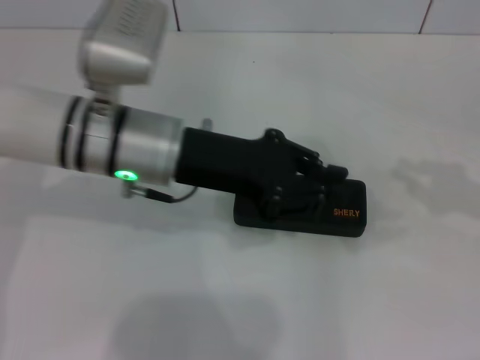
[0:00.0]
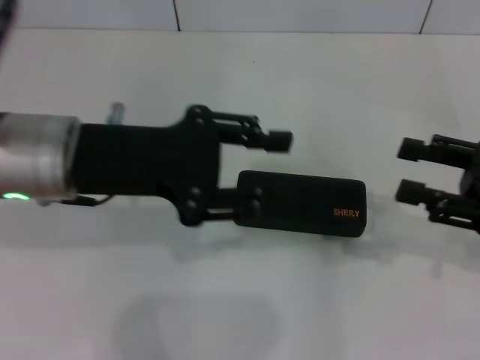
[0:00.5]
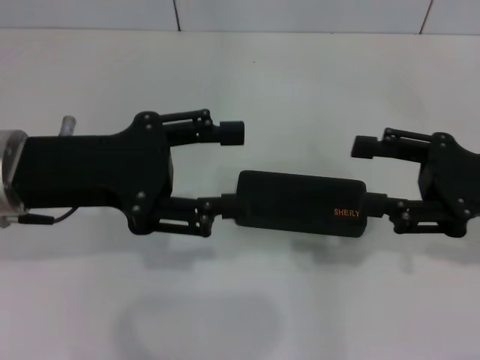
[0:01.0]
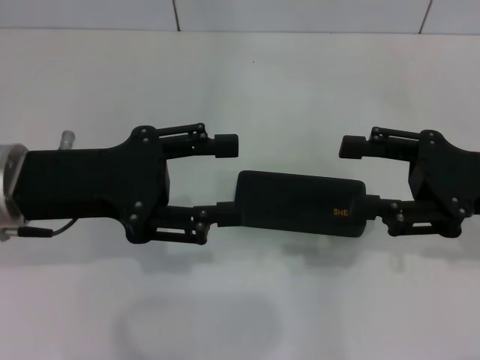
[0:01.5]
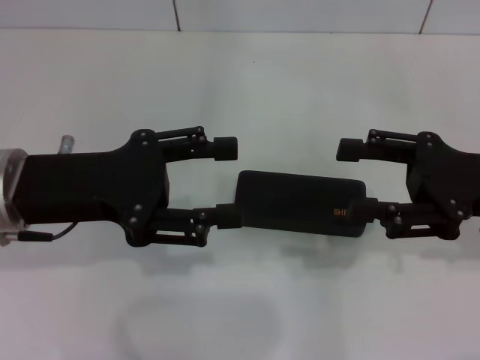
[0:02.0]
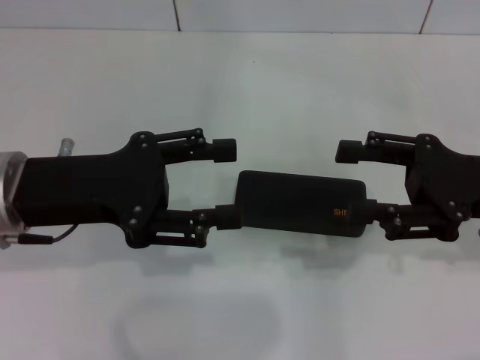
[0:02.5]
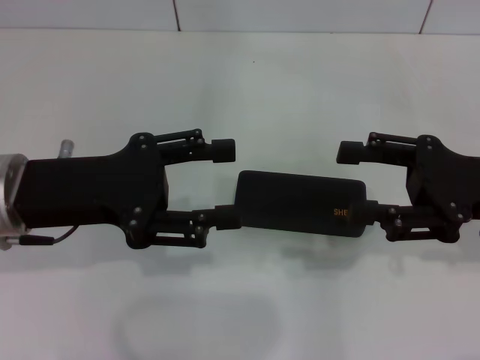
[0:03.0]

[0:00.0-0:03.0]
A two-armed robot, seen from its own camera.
0:00.0 to 0:01.5: The right gripper heads to the left, covering roughly 10 cm, and opens up. Meanwhile the left gripper goes some 10 cm to the left and backward, and opens its fingers.
0:01.5 to 0:03.0: Neither gripper changes place.
